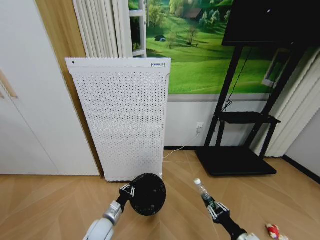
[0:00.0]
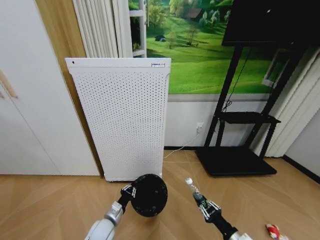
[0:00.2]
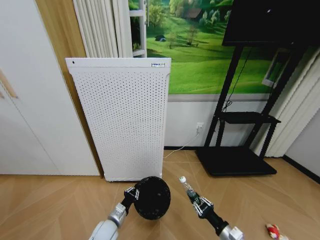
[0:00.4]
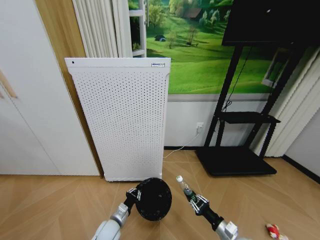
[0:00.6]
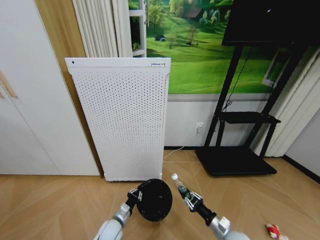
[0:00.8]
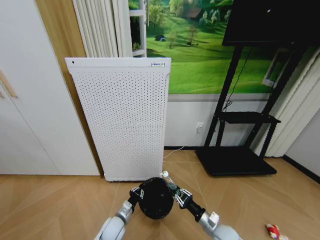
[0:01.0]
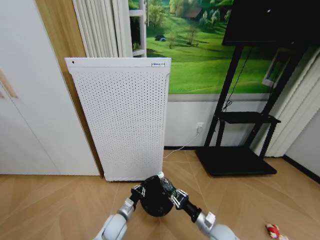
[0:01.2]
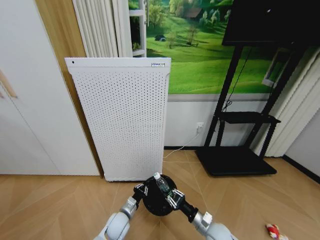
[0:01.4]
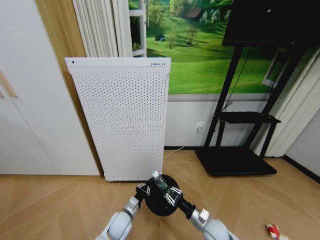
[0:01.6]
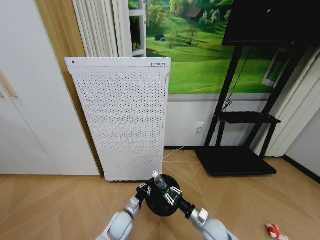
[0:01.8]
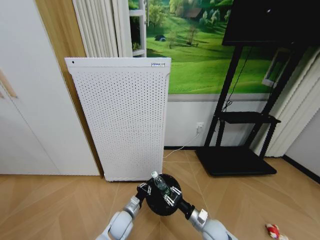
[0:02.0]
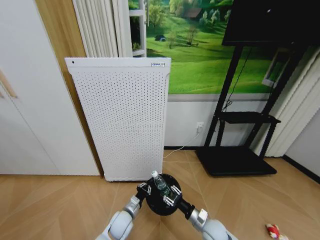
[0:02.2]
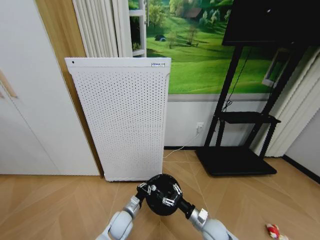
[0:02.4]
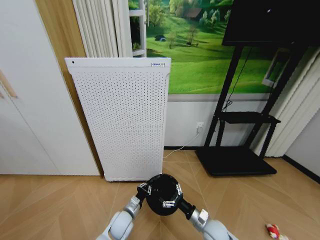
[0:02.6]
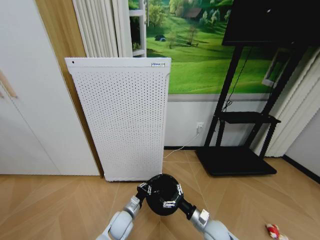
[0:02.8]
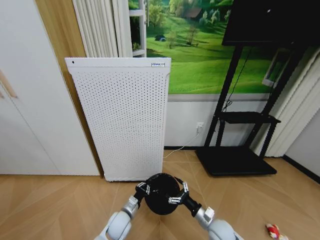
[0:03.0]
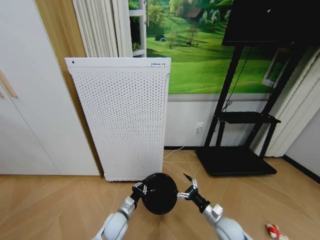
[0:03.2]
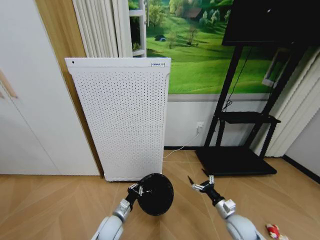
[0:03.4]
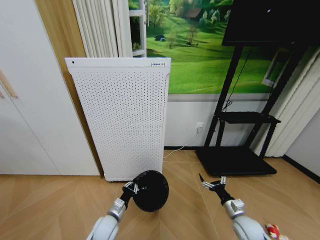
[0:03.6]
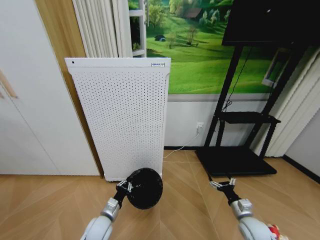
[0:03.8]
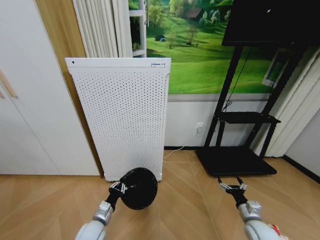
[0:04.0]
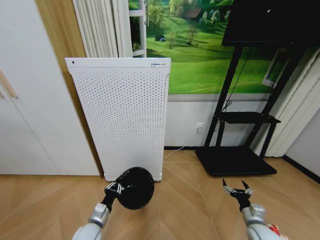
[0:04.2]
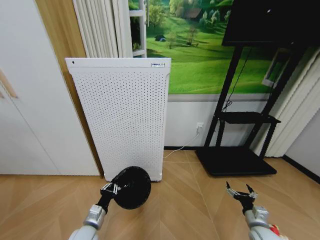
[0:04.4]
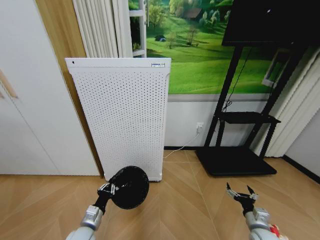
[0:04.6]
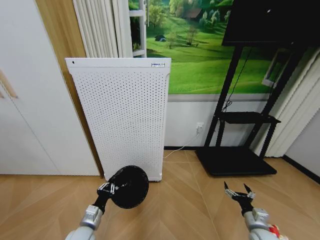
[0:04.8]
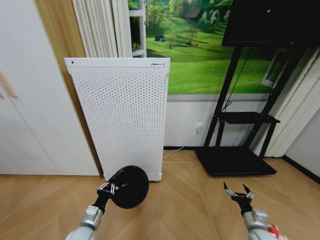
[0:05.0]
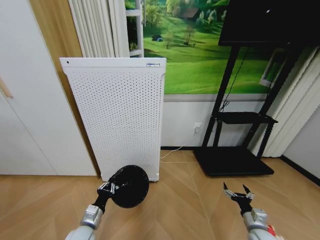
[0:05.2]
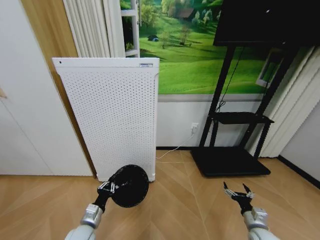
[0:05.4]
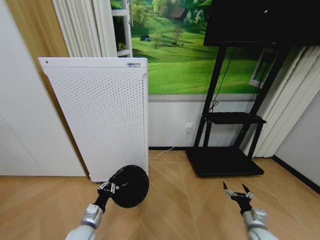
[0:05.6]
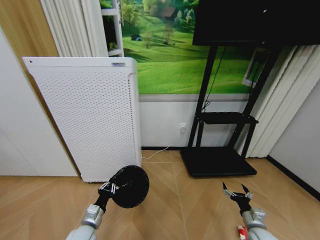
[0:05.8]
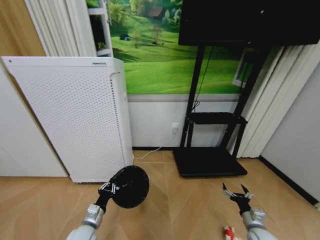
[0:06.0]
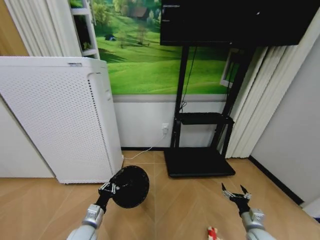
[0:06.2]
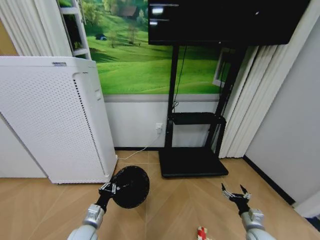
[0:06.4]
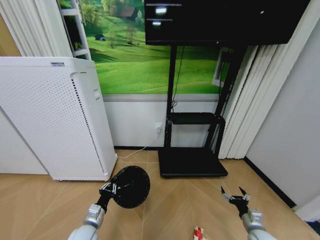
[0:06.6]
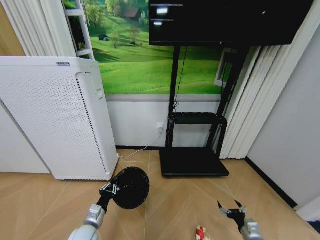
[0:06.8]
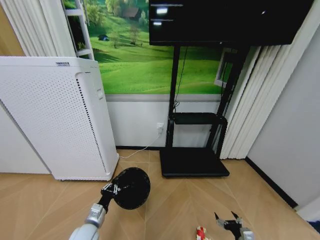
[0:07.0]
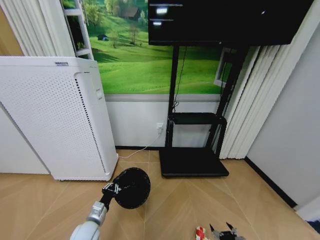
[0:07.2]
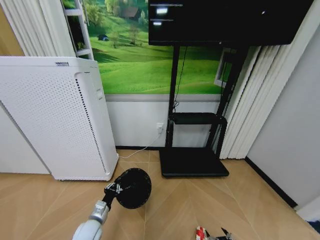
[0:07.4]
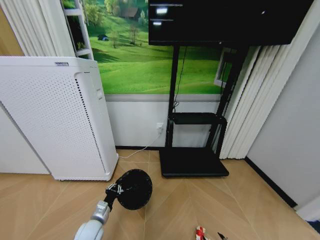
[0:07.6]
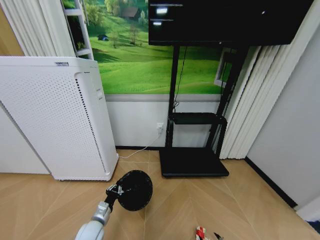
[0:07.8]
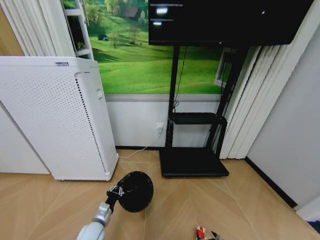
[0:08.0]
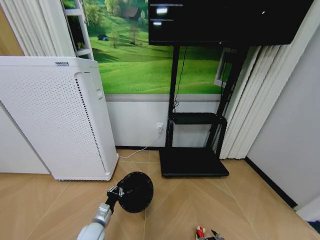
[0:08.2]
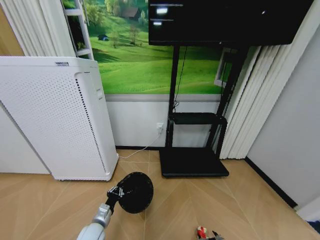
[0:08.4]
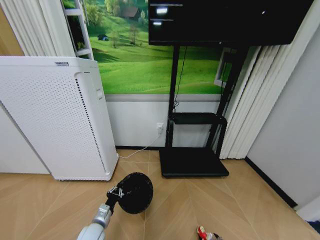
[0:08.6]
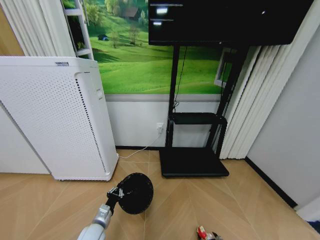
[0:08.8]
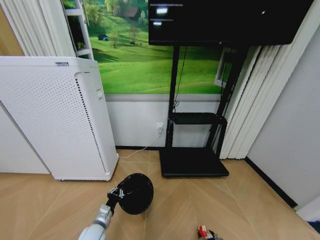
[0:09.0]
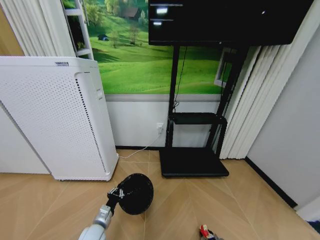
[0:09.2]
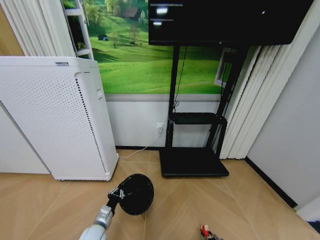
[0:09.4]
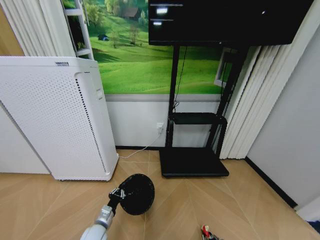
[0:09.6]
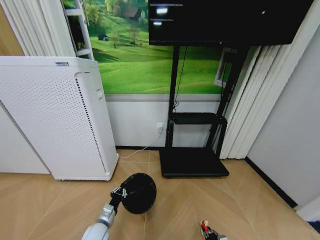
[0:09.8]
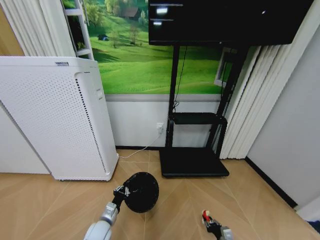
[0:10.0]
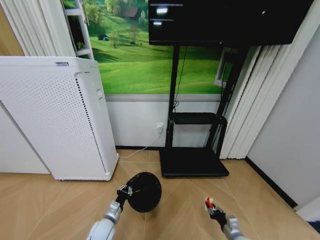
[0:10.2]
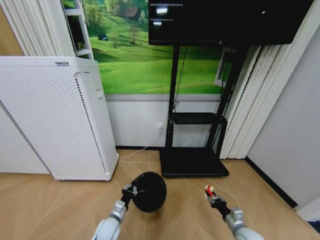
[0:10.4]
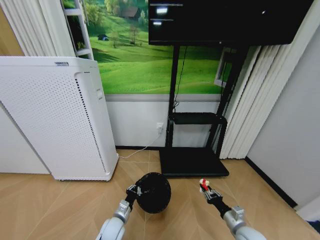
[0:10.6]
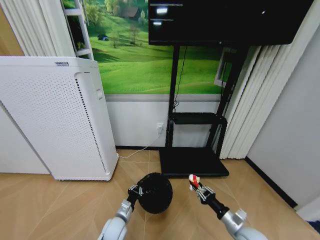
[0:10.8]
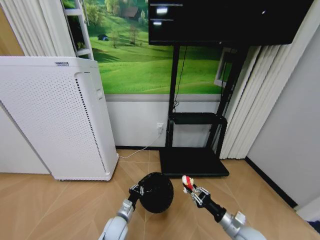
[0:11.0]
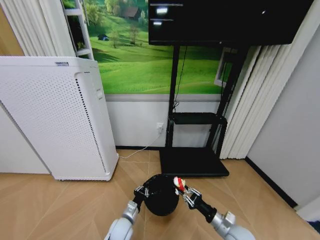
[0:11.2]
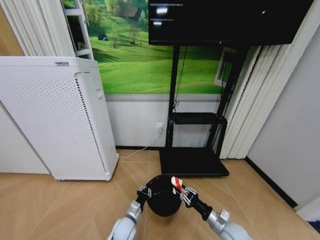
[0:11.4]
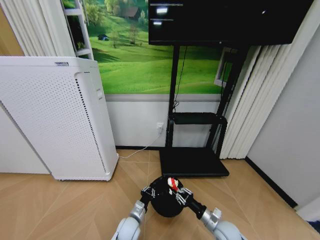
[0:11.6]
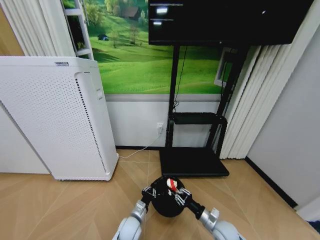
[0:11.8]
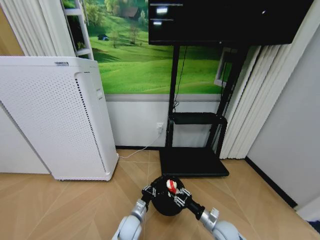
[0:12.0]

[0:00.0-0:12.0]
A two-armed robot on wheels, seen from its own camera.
Task of the whole recording: Pick up the trash bin and place the garbage on the floor into it.
0:00.0 to 0:01.6: The left gripper shifts approximately 5 cm to the right; the right gripper shifts roughly 15 cm forward and to the left.
0:01.6 to 0:03.0: The right gripper opens its fingers.
0:03.0 to 0:04.4: The left gripper moves to the left, backward and upward, some 15 cm. The right gripper heads to the right, covering roughly 20 cm.
0:06.0 to 0:07.6: The right gripper heads downward, backward and to the left, covering roughly 15 cm.
0:07.6 to 0:09.0: The right gripper heads downward, covering approximately 5 cm.
0:09.0 to 0:10.4: The left gripper moves to the right, roughly 5 cm; the right gripper goes some 20 cm upward and forward, and closes up.
0:10.4 to 0:12.0: The left gripper goes about 10 cm to the right, while the right gripper goes some 10 cm to the left.

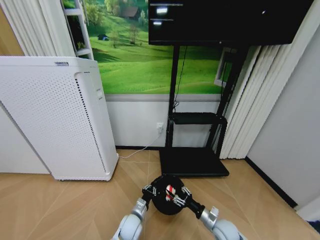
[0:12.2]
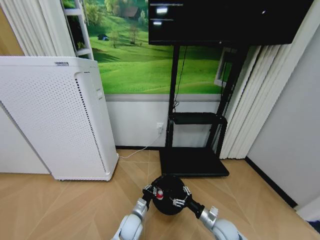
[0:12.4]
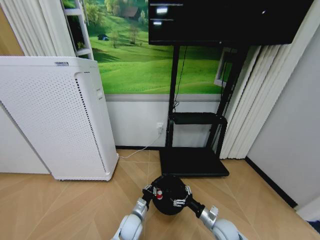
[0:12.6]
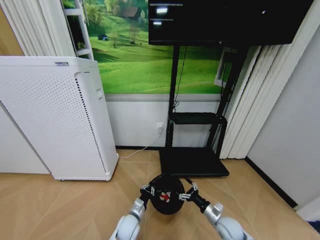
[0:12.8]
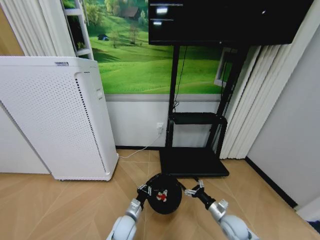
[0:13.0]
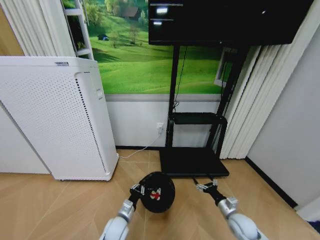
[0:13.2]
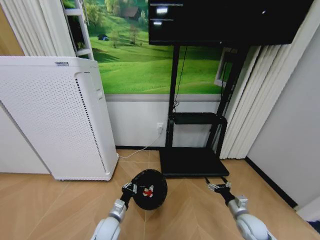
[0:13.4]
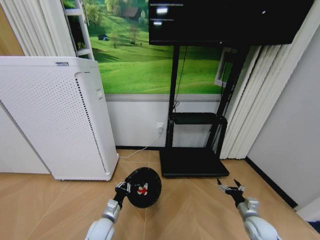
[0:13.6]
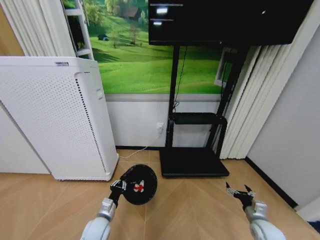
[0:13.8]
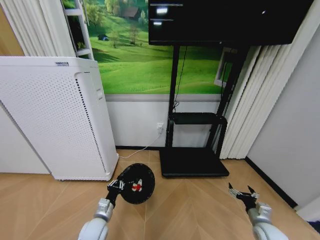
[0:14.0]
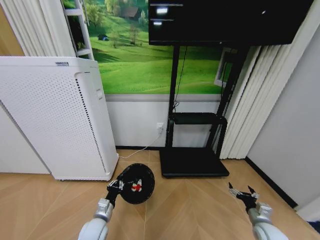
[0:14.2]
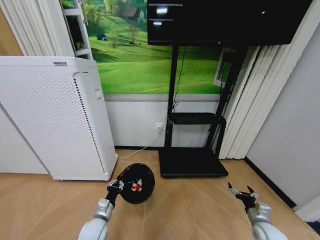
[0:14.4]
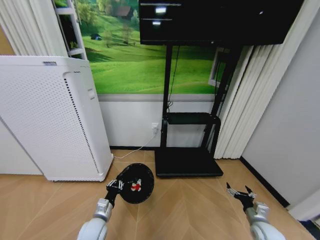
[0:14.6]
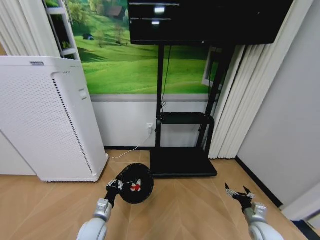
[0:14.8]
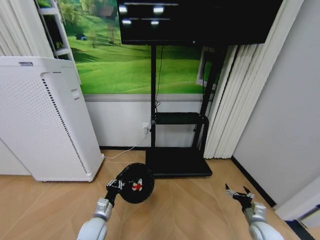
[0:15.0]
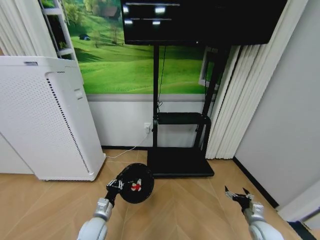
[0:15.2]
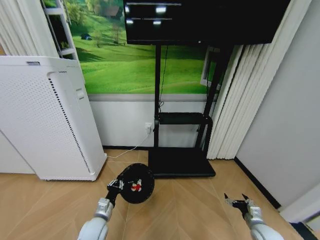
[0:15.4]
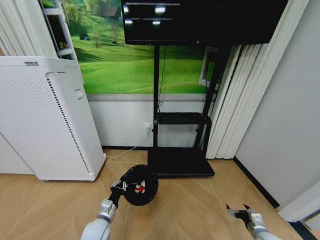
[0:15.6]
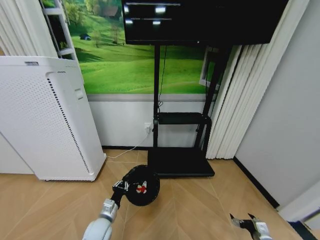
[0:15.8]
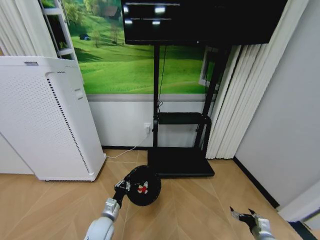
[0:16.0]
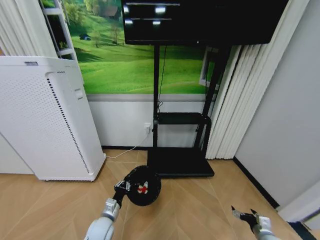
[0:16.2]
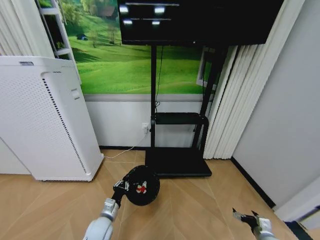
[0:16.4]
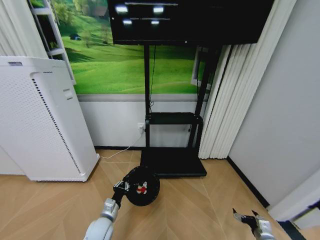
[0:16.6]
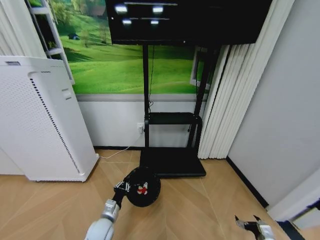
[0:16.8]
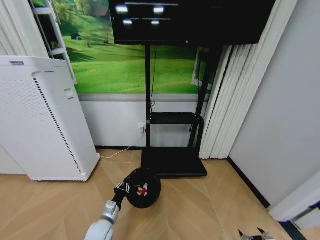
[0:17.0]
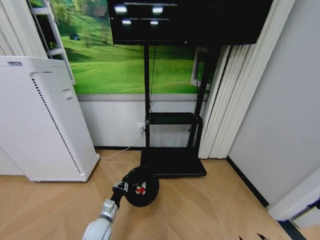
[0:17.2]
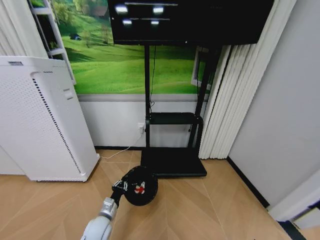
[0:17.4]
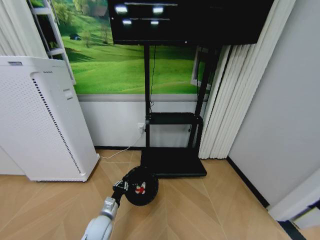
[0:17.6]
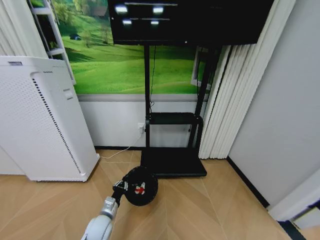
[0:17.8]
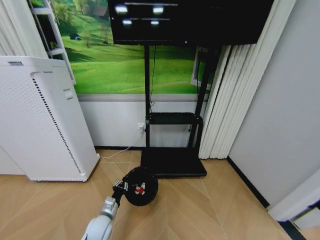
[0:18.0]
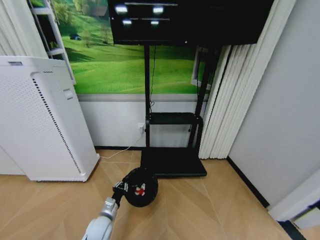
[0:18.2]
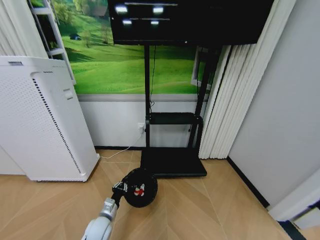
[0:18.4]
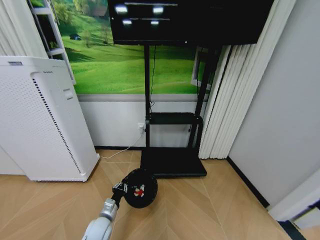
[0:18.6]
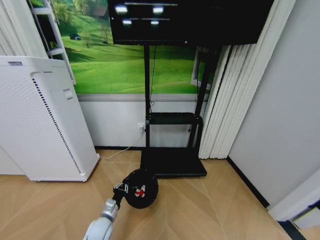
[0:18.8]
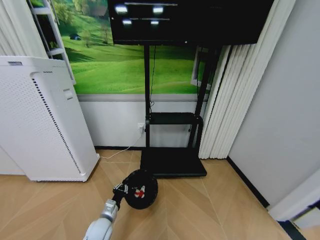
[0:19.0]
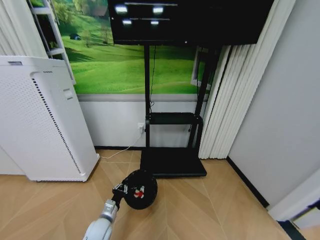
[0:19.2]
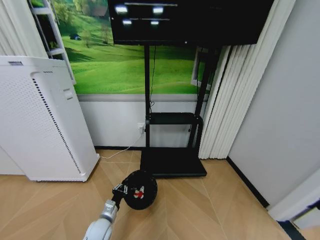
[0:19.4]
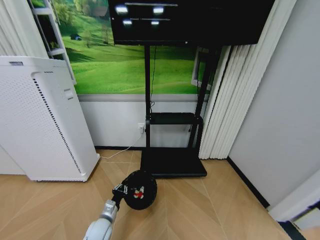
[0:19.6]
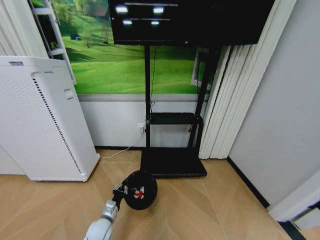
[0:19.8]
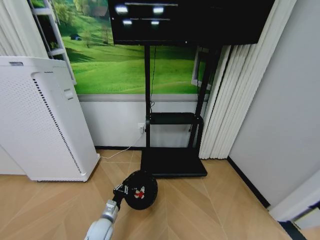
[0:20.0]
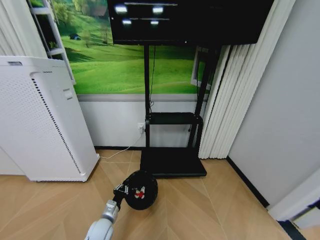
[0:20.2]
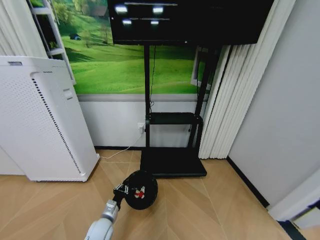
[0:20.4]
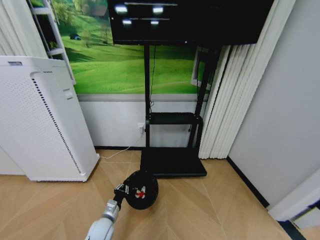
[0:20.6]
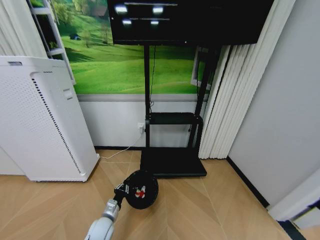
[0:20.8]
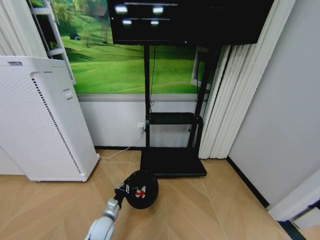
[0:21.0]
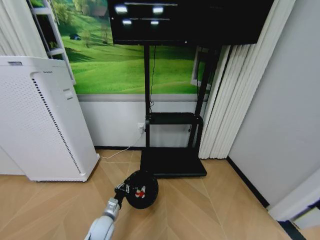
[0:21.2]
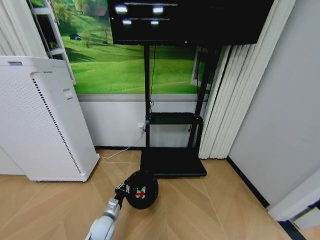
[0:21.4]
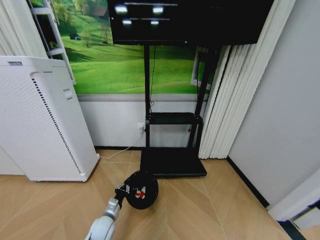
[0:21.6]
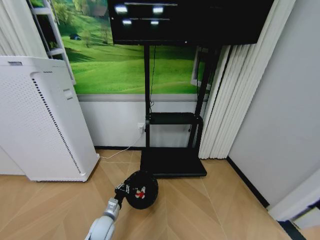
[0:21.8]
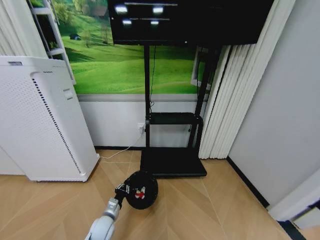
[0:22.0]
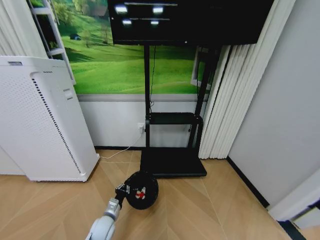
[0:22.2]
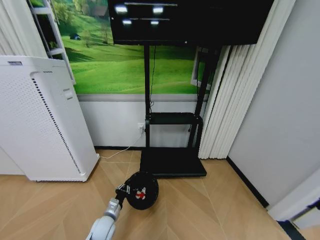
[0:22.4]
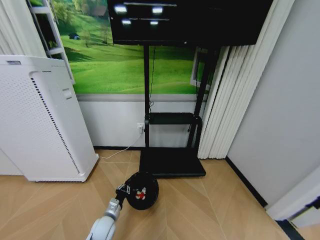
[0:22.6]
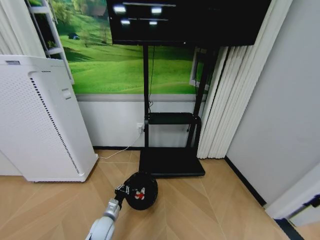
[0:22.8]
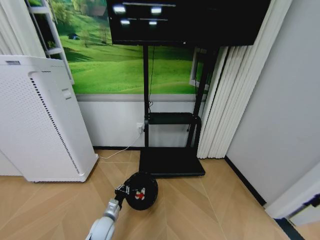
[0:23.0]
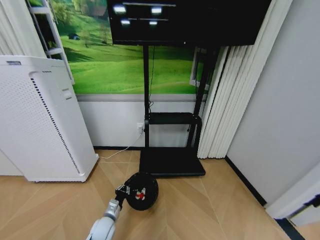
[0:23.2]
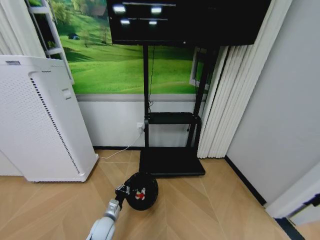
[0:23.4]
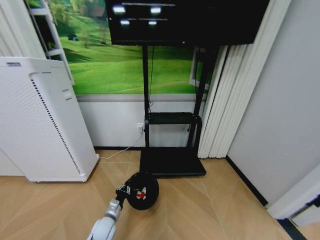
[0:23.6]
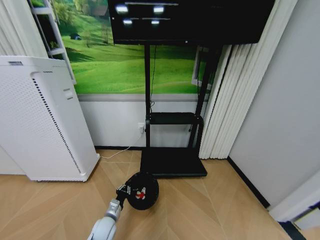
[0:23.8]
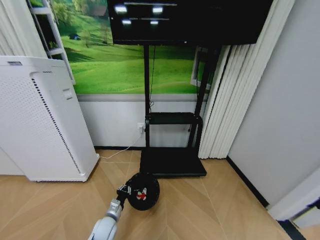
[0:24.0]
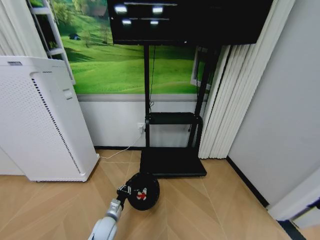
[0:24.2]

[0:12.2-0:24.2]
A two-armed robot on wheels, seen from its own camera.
Task of the whole recording: Pick up the trash bin and place the garbage on the floor into it.
0:12.2 to 0:13.8: The right gripper travels to the right by about 15 cm, and opens its fingers; the left gripper heads to the left and upward, covering some 15 cm.
0:15.2 to 0:16.6: The right gripper is displaced backward by some 5 cm.
0:16.6 to 0:18.2: The right gripper moves backward and downward, about 15 cm.
0:18.2 to 0:19.8: The right gripper closes its fingers.
0:19.8 to 0:21.2: The right gripper opens.
0:21.2 to 0:22.6: The grippers make only small movements.
0:22.6 to 0:24.2: The right gripper closes.
